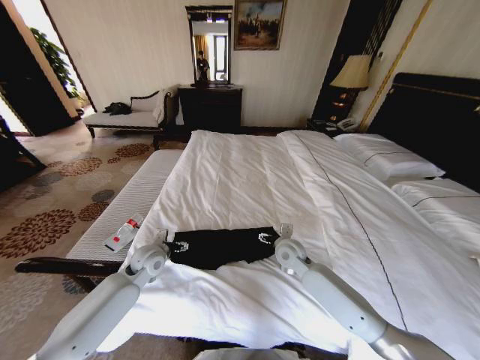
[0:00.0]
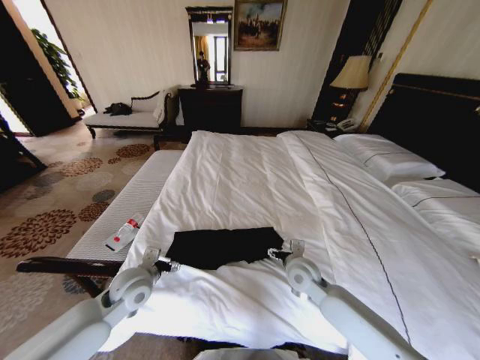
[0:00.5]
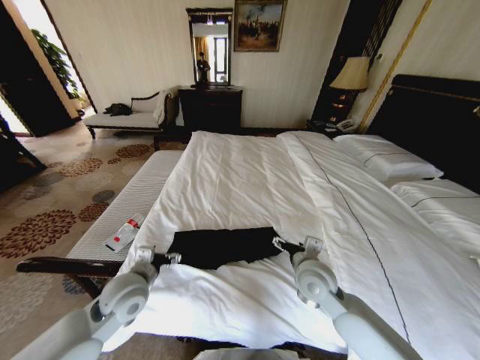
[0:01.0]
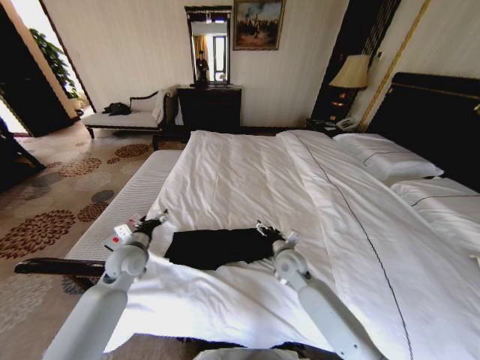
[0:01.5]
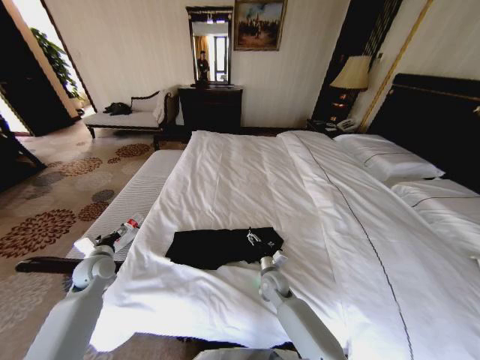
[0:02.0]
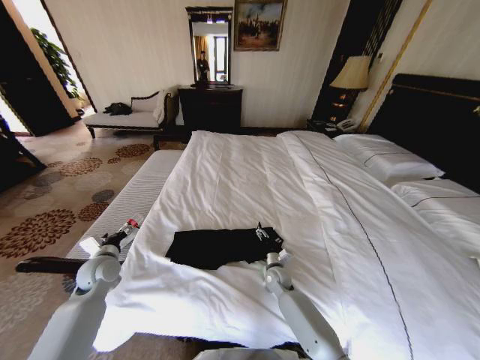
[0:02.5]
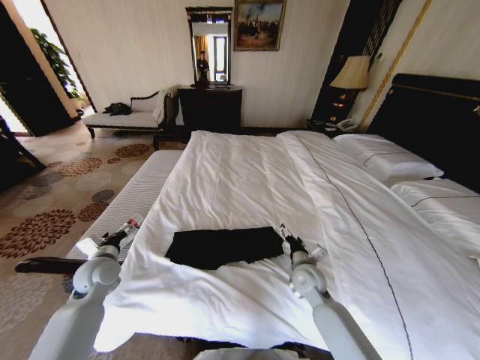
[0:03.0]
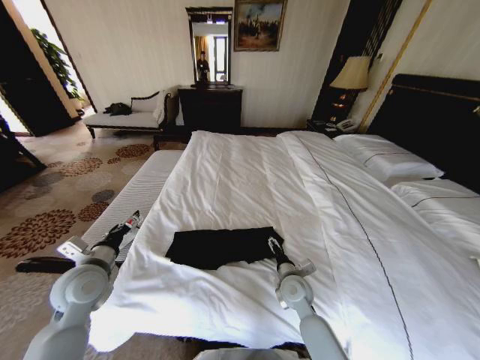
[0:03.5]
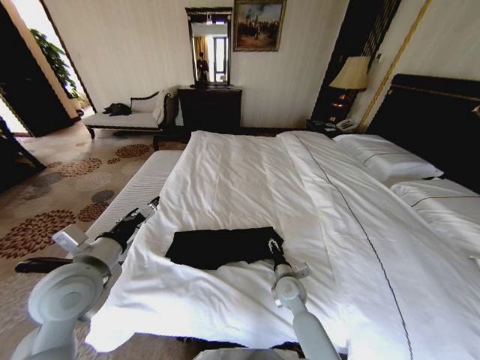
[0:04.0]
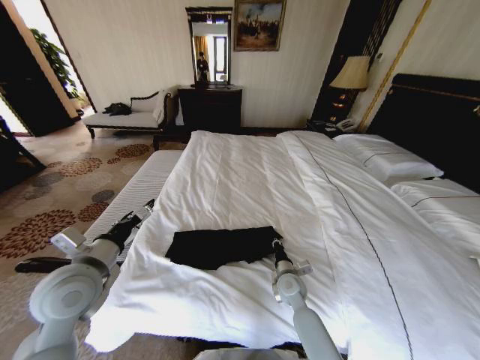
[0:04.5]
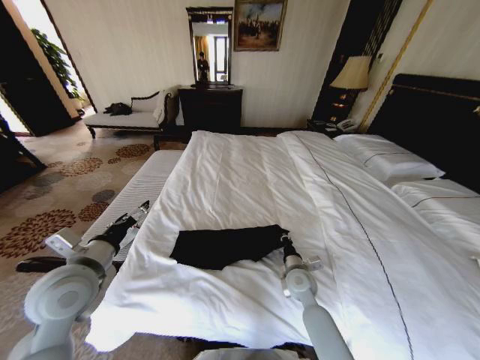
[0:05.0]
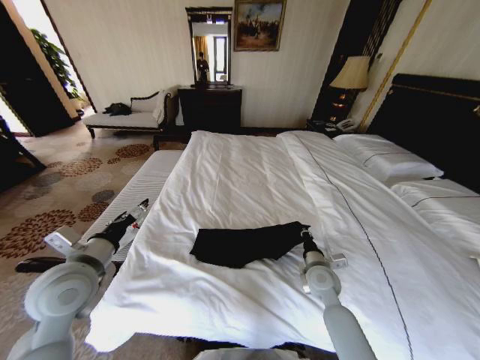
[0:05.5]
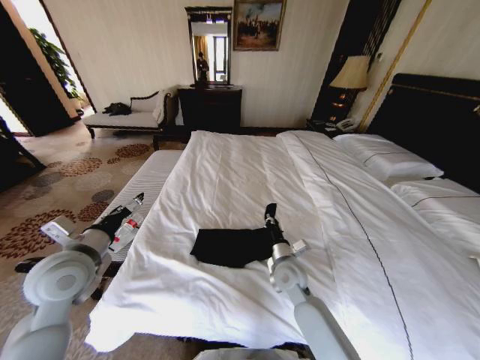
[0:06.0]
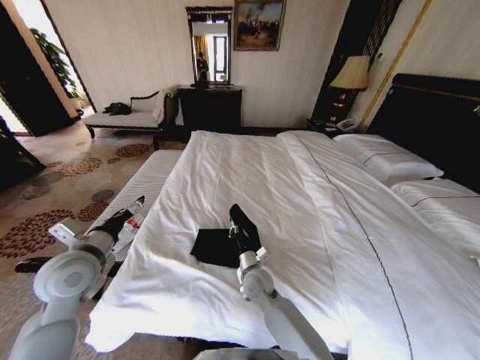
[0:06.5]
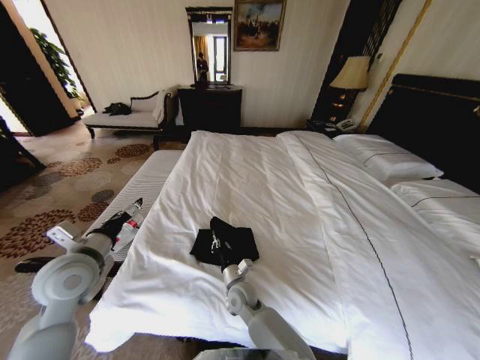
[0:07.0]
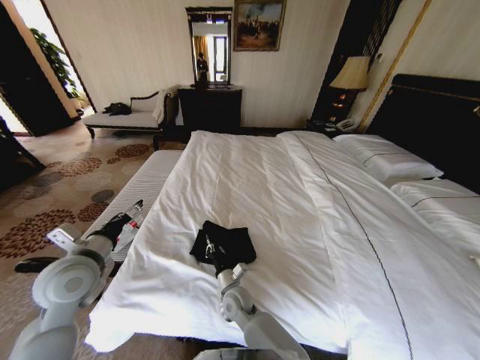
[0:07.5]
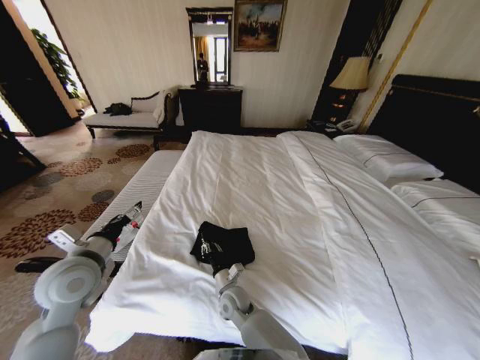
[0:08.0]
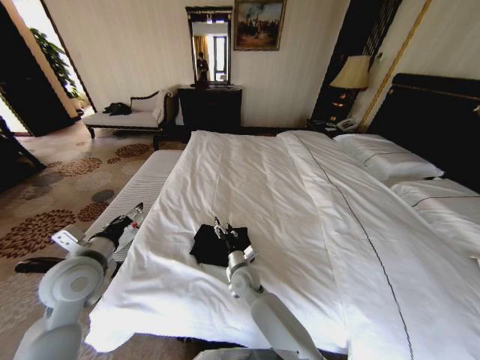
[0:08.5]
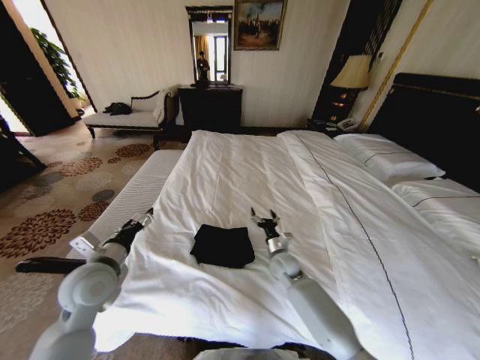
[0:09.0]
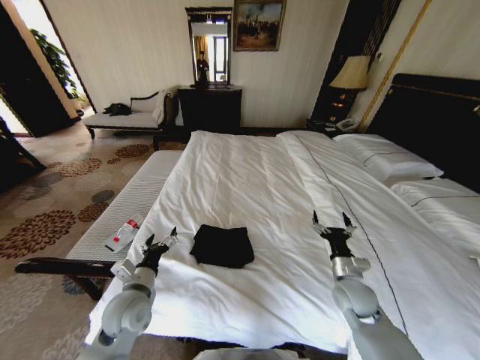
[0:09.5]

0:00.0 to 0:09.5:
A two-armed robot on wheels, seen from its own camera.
Task of the whole recording: Fold the clothes on the bed.
0:00.0 to 0:02.0: The left gripper is displaced to the left by about 15 cm. Meanwhile the right gripper heads downward and backward, covering roughly 15 cm.
0:02.0 to 0:04.0: The left gripper heads upward, to the right and backward, covering approximately 25 cm. The right gripper goes upward and returns, approximately 10 cm each way.
0:04.0 to 0:05.5: The right gripper is displaced to the right and upward by about 10 cm, and closes.
0:05.5 to 0:07.5: The right gripper heads to the left, covering some 25 cm.
0:07.5 to 0:09.5: The right gripper shifts roughly 30 cm to the right, and opens up. The left gripper shifts roughly 15 cm downward and to the right.

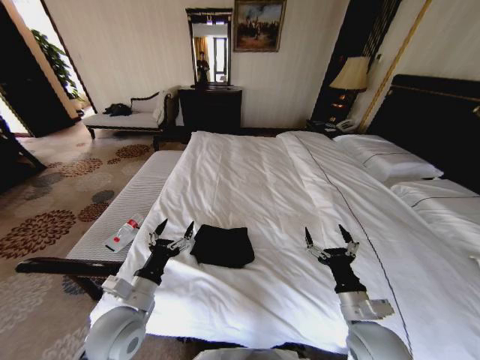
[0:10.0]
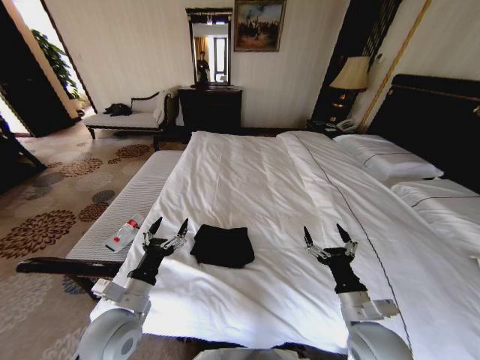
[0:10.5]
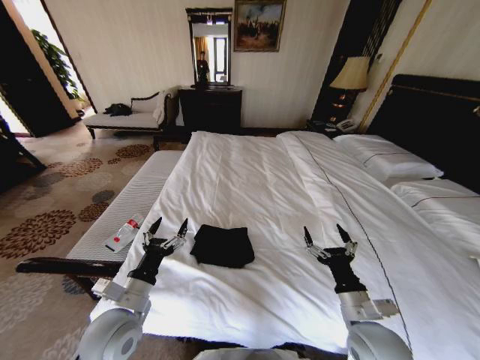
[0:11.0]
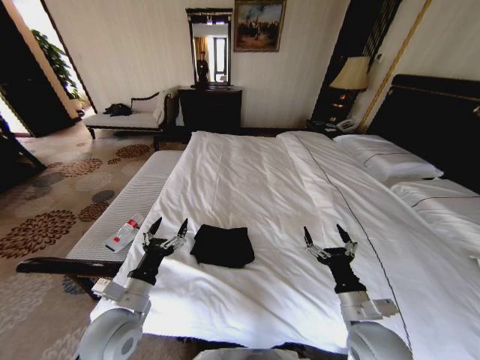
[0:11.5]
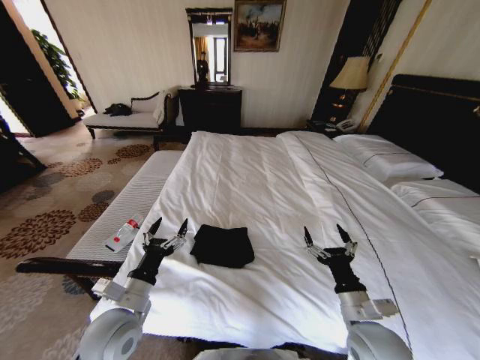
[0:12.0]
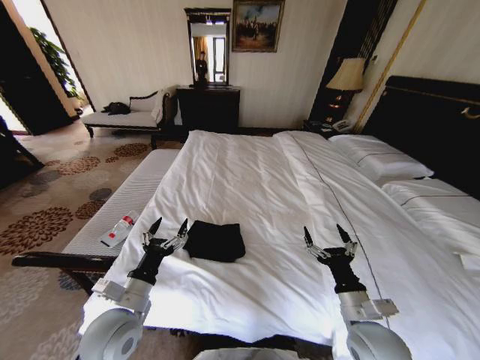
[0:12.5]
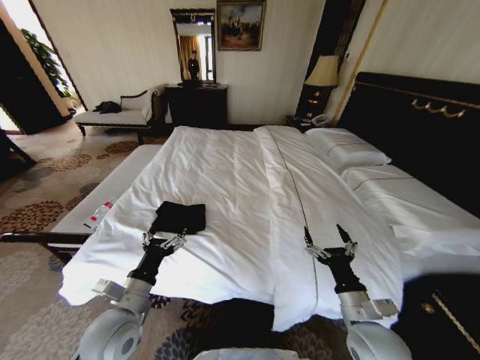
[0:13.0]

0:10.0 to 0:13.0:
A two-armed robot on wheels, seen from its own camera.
Task of the whole recording: Fold the clothes on the bed.
0:10.0 to 0:11.5: The grippers make only small movements.
